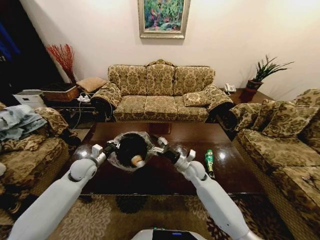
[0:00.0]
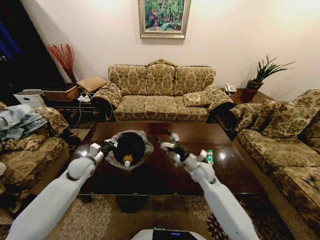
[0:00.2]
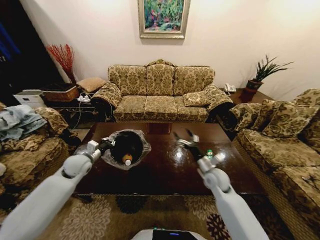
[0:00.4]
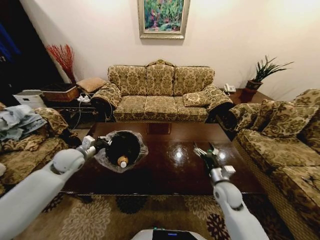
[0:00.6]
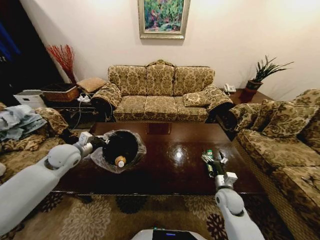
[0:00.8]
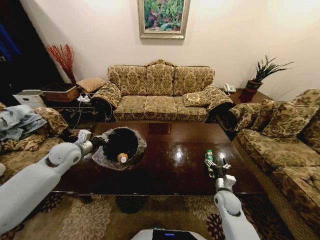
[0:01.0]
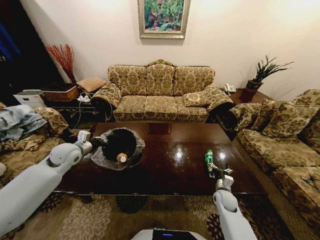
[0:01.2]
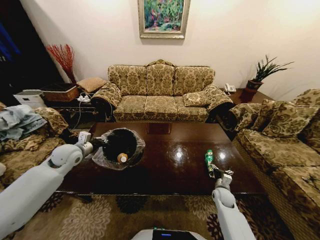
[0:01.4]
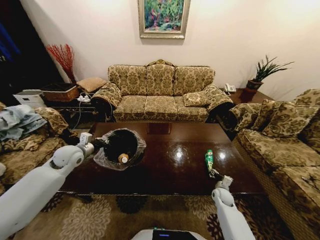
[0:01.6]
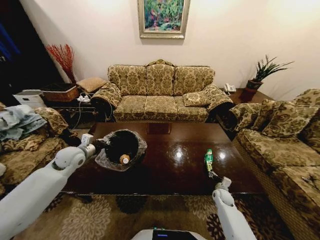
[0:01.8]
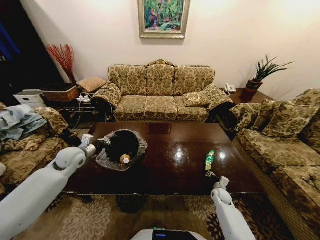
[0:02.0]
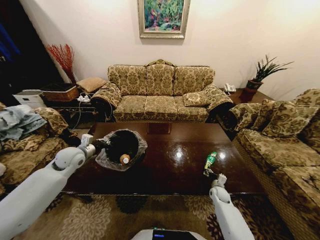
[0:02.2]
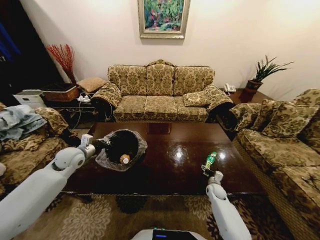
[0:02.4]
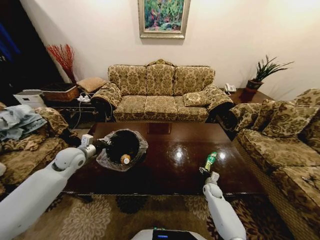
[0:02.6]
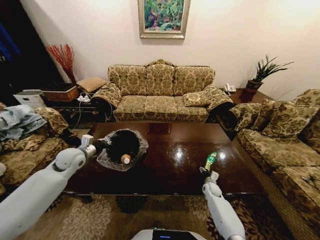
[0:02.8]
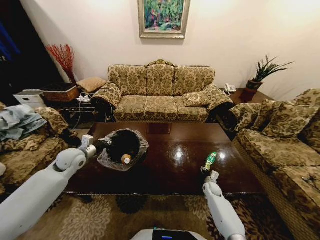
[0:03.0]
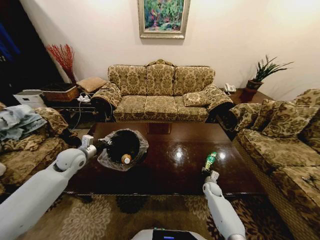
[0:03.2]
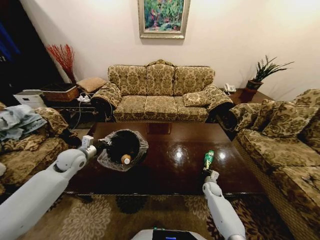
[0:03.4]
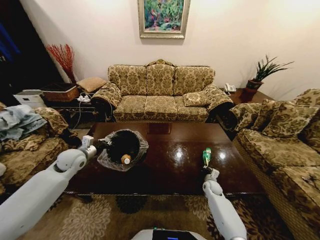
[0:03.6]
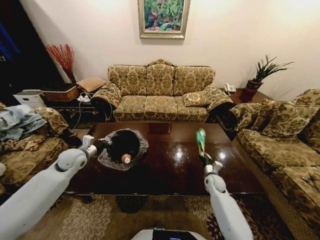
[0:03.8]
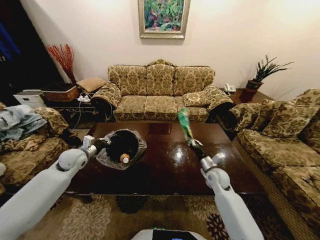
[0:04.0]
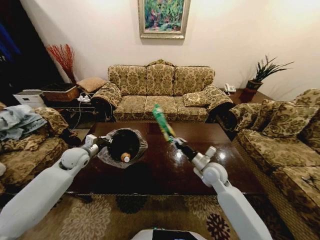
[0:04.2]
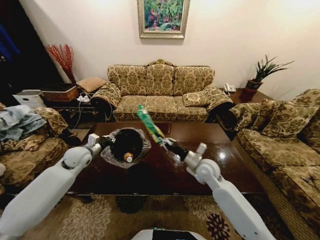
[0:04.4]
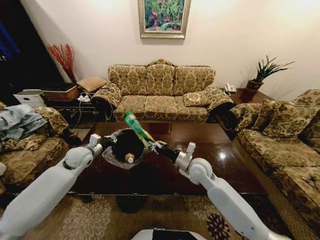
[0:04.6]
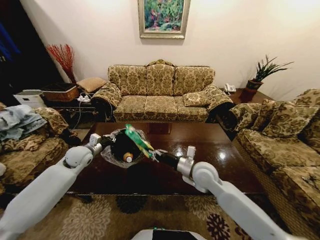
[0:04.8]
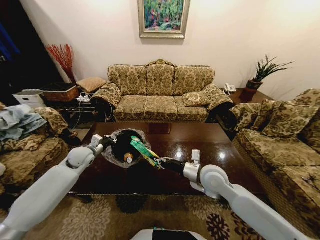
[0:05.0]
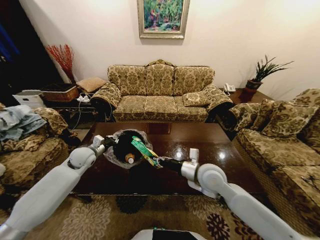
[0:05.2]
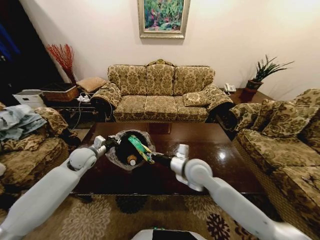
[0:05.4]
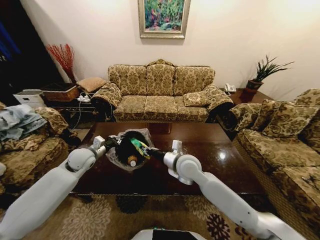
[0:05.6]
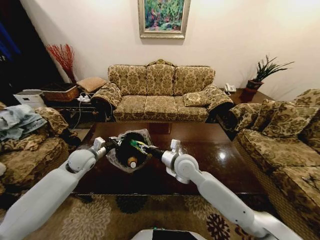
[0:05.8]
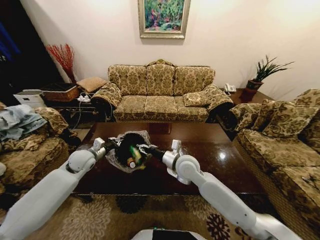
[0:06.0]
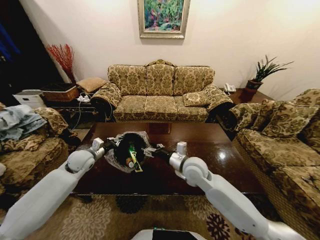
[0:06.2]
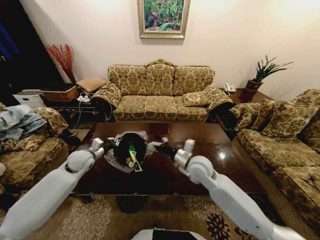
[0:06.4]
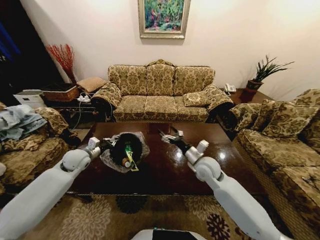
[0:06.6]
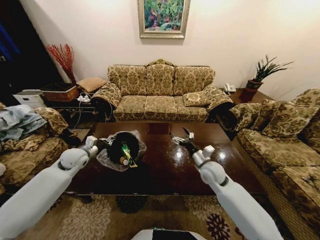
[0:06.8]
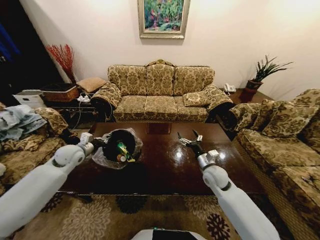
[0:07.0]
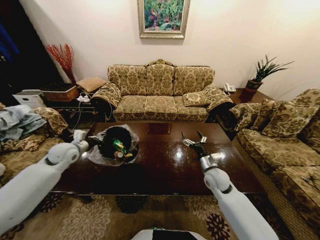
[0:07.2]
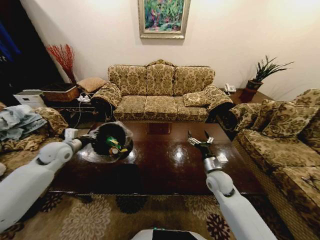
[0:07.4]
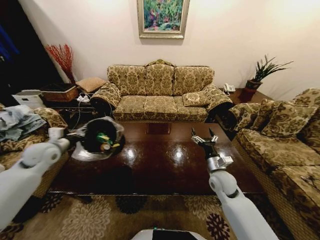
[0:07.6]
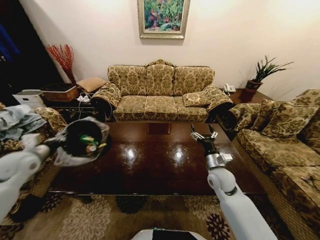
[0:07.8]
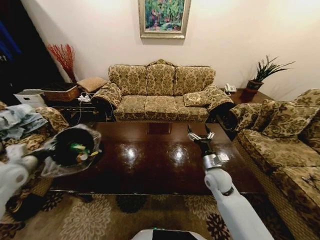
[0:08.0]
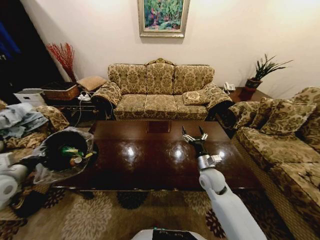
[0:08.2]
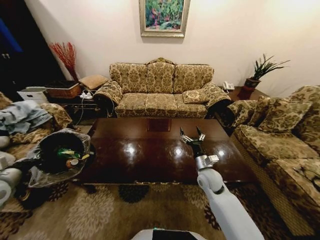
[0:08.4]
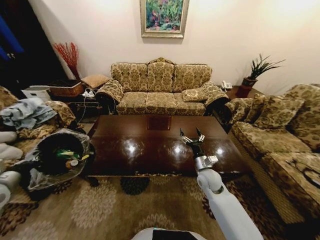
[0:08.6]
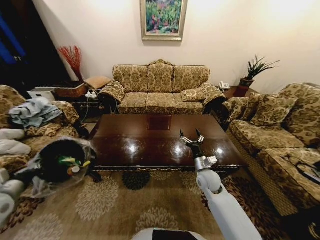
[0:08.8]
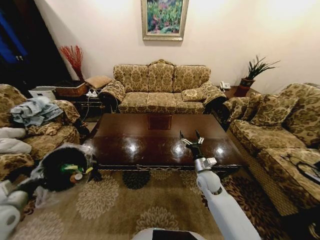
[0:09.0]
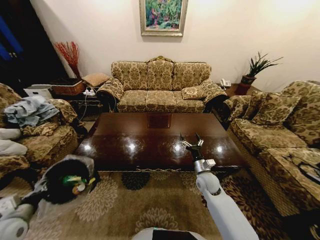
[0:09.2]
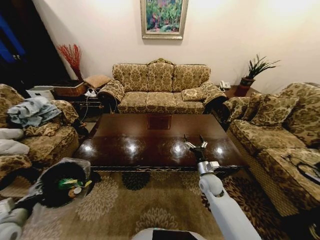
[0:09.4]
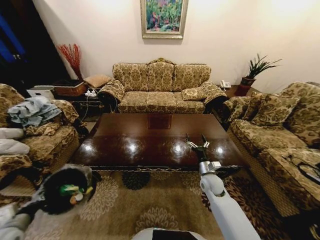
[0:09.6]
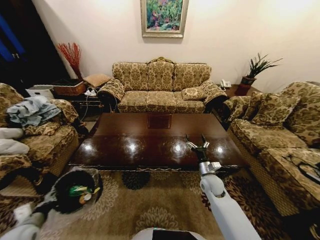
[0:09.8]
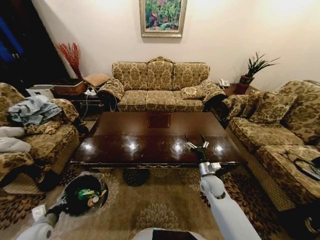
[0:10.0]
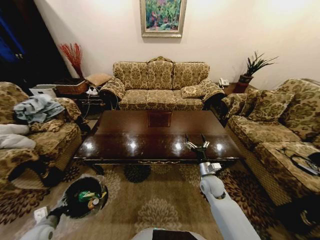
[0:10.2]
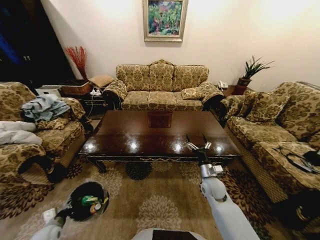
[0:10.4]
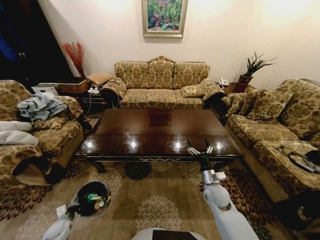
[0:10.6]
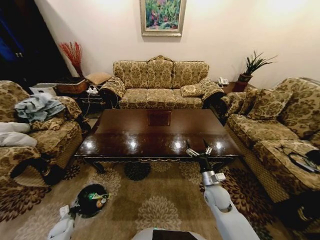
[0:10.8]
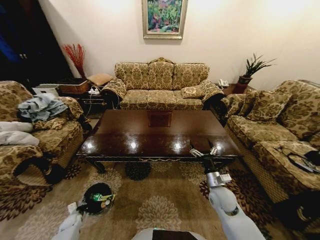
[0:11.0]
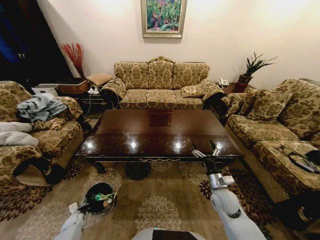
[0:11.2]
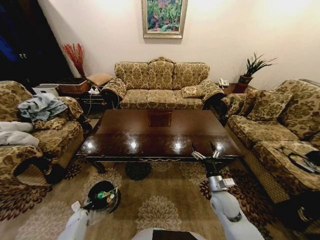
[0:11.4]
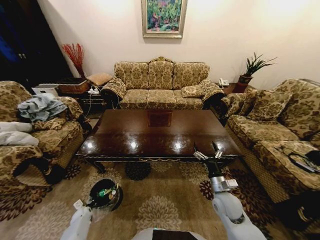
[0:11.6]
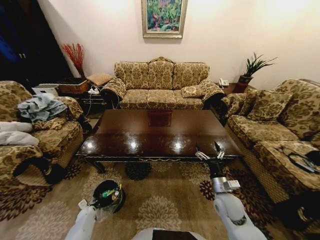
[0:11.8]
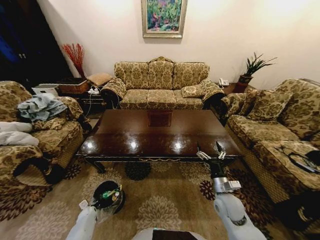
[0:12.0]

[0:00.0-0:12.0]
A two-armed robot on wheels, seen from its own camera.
Task of the whole recording: Move to the front of the table and place the trash on the table into the trash bin.
0:00.0 to 0:01.6: The left gripper moves upward, about 10 cm. Meanwhile the right gripper shifts about 25 cm to the right and downward.
0:01.6 to 0:03.0: The right gripper shifts by approximately 5 cm, and closes.
0:03.0 to 0:04.4: The right gripper shifts some 30 cm upward and to the left, and closes up.
0:04.4 to 0:06.0: The right gripper shifts about 10 cm to the left, and opens up.
0:06.0 to 0:07.6: The left gripper travels to the left and upward by roughly 15 cm. Meanwhile the right gripper heads to the right and downward, covering approximately 20 cm, and opens its fingers.
0:07.6 to 0:09.0: The right gripper ends up approximately 5 cm from where it was. The left gripper heads backward, covering about 20 cm.
0:09.0 to 0:10.4: The left gripper moves downward, some 20 cm.
0:10.4 to 0:12.0: The left gripper shifts about 20 cm downward and forward; the right gripper goes roughly 5 cm backward.

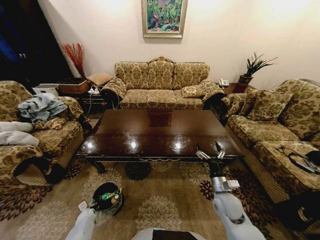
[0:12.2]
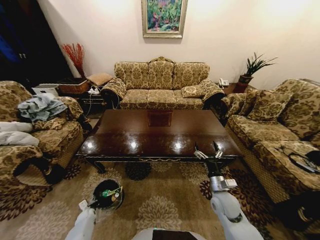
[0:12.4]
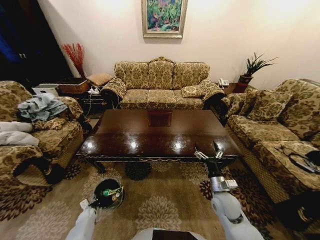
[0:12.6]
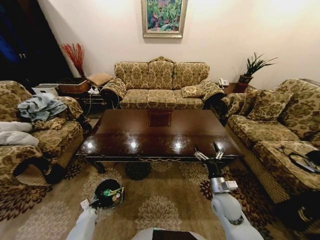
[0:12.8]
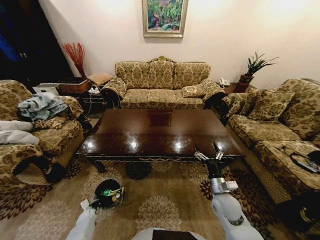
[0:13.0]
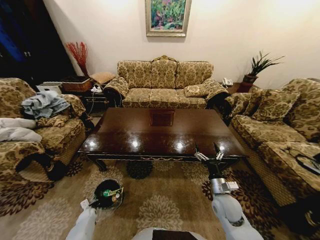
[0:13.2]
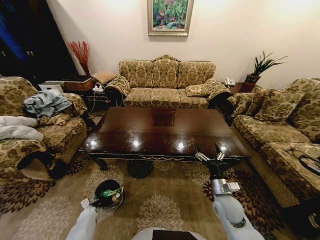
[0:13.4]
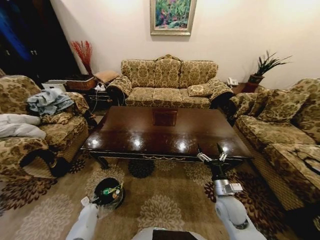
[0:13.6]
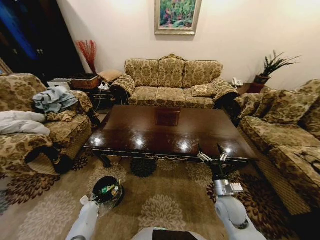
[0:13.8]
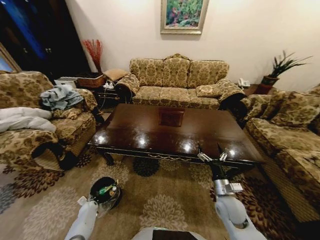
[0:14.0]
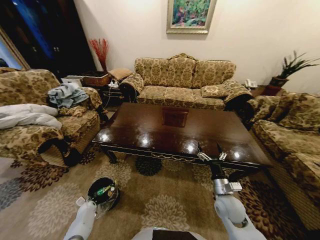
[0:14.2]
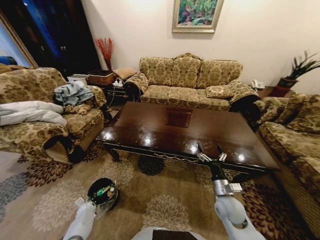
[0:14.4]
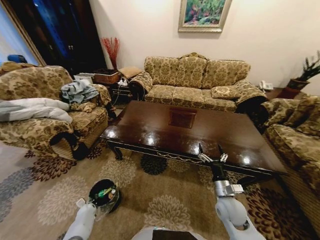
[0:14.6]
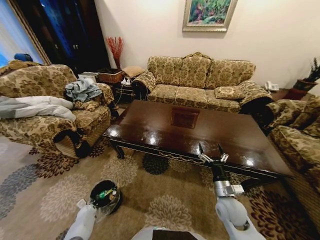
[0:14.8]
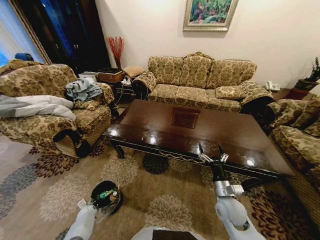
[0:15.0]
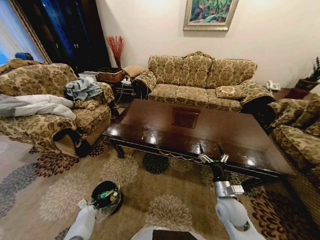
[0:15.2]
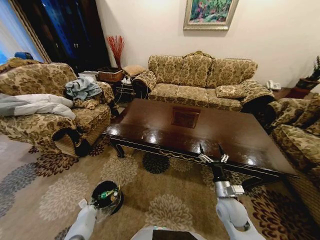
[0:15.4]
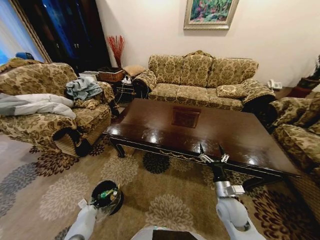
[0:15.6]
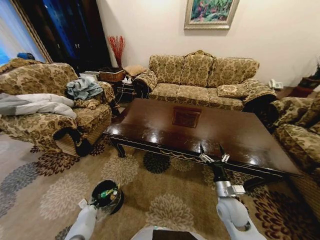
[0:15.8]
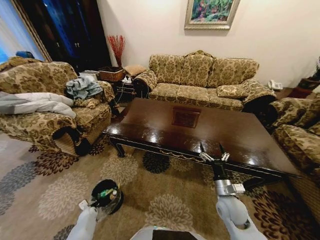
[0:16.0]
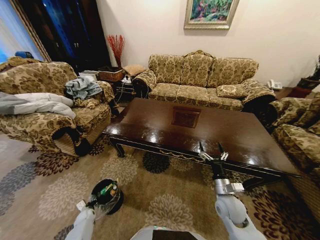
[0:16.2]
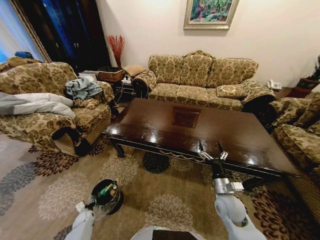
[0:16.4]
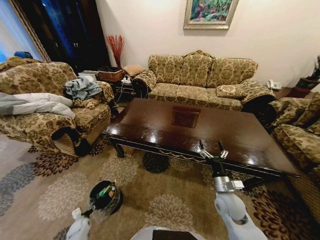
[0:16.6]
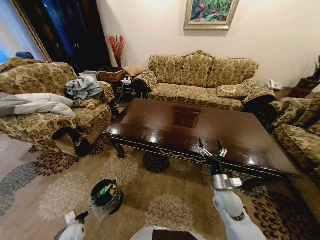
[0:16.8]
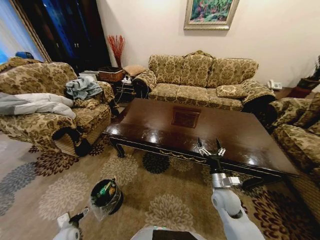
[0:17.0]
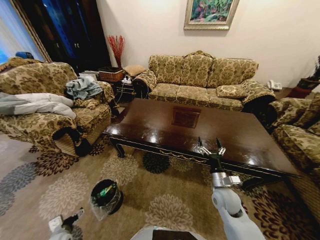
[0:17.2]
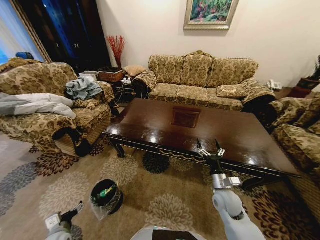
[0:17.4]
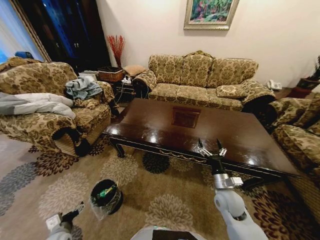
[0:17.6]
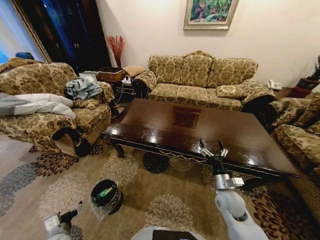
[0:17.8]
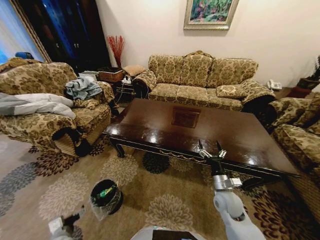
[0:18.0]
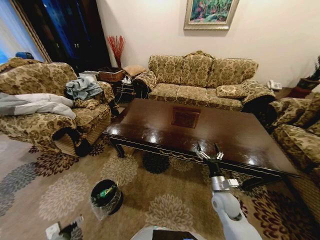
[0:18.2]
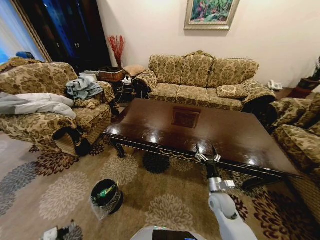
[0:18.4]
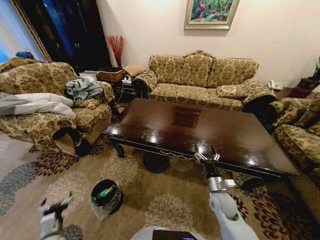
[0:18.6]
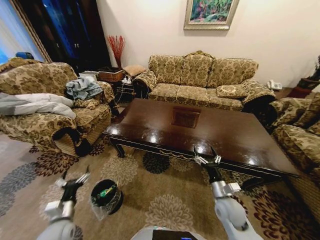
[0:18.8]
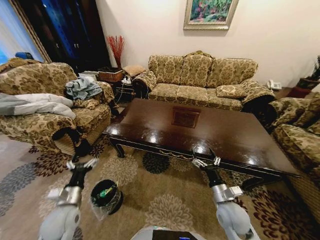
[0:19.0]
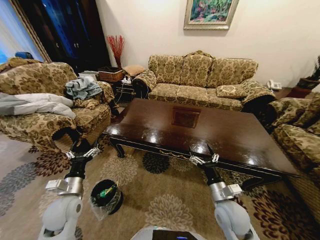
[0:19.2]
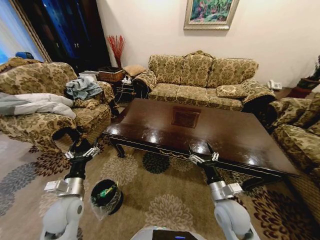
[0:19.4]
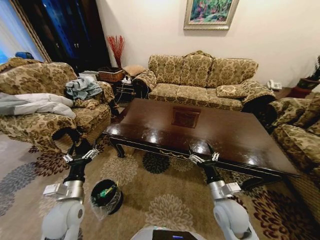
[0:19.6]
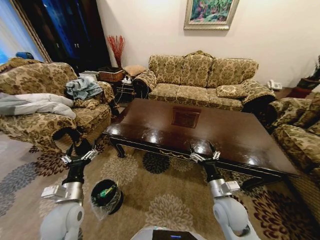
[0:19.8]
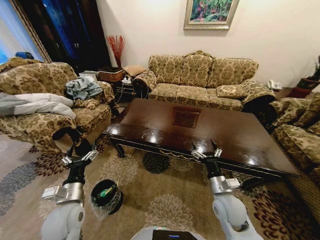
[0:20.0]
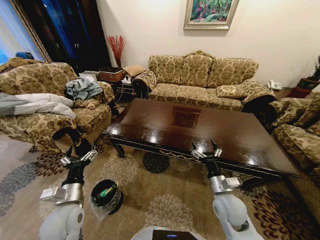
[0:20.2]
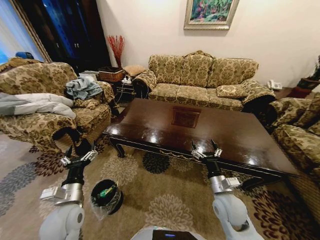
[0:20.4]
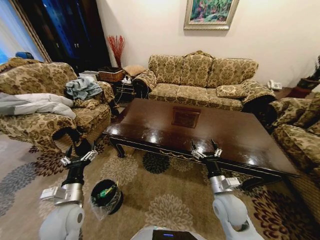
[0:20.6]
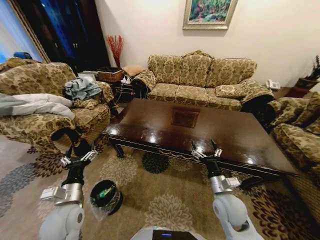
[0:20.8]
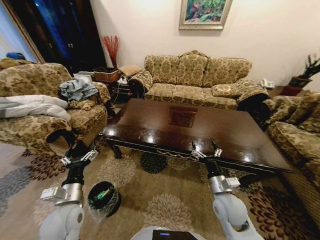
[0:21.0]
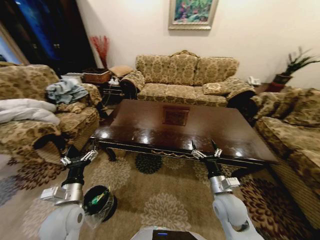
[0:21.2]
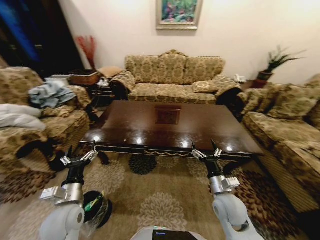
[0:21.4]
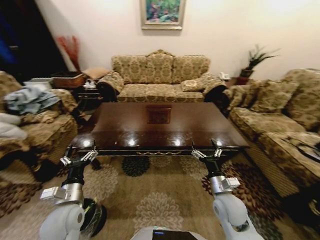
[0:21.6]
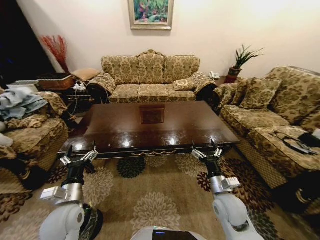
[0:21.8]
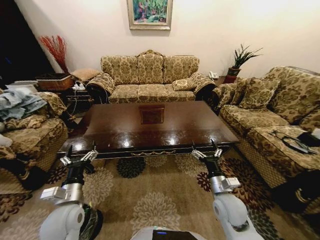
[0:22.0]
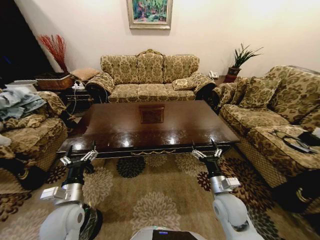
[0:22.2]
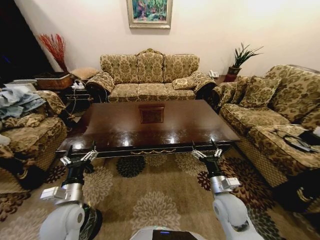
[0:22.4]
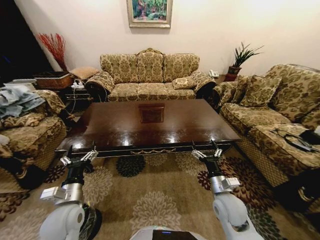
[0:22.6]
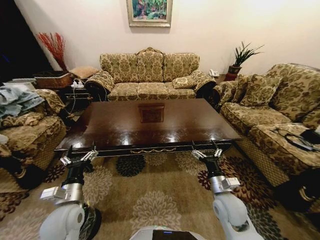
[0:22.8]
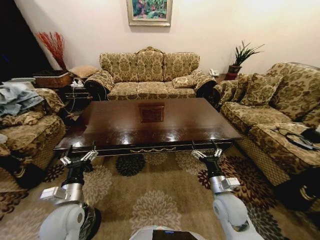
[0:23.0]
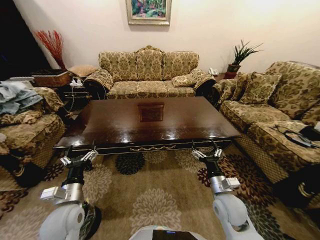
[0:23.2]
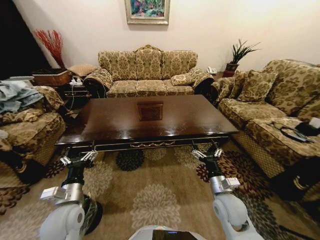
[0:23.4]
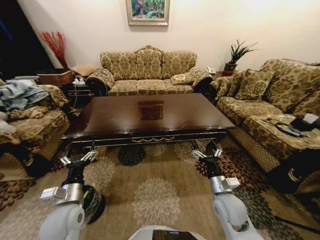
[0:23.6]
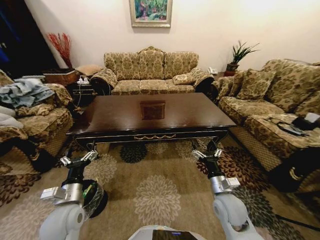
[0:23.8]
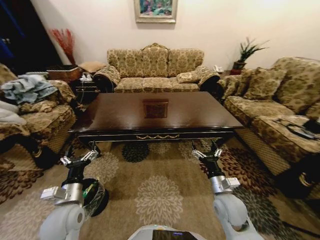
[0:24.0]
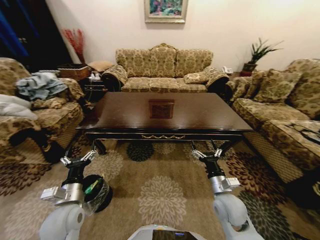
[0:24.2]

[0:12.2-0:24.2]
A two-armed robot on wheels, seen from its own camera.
Task of the whole recording: Move to the front of the table and place the trash on the table into the trash bin.
0:15.2 to 0:16.6: The left gripper heads backward, covering roughly 5 cm, and opens.
0:16.6 to 0:18.2: The left gripper travels upward and backward by some 15 cm.
0:18.2 to 0:19.8: The right gripper is displaced upward by approximately 5 cm, while the left gripper shifts approximately 25 cm upward, to the right and forward.
